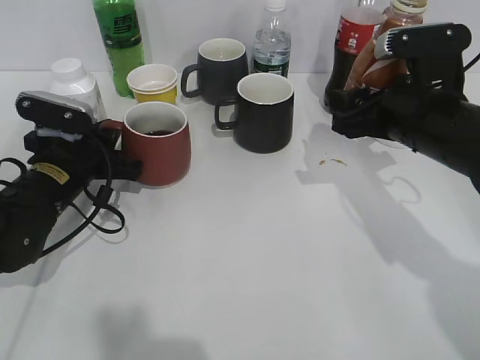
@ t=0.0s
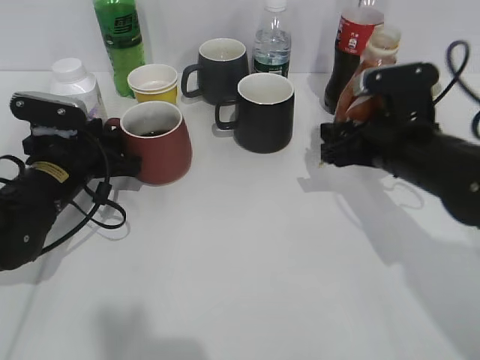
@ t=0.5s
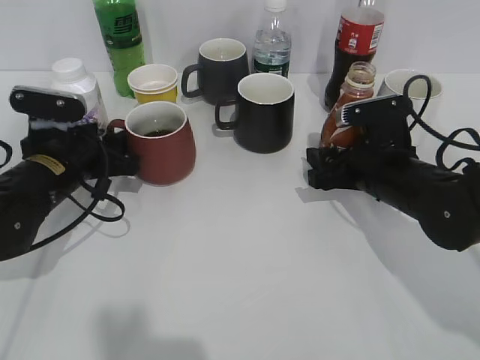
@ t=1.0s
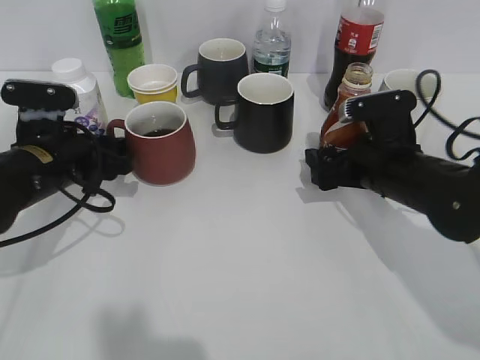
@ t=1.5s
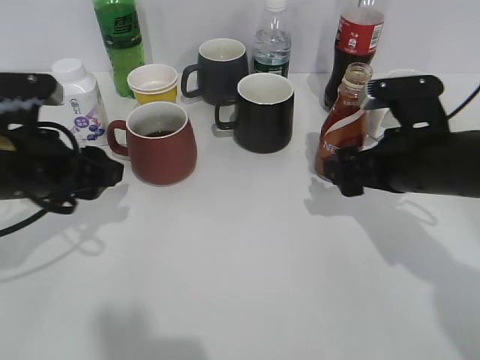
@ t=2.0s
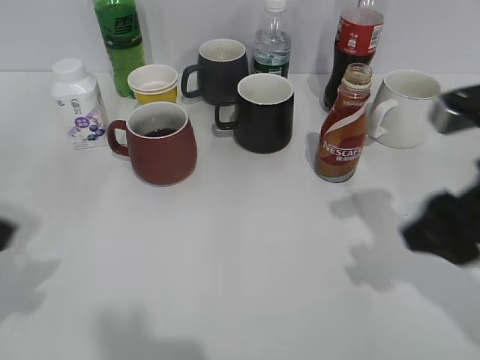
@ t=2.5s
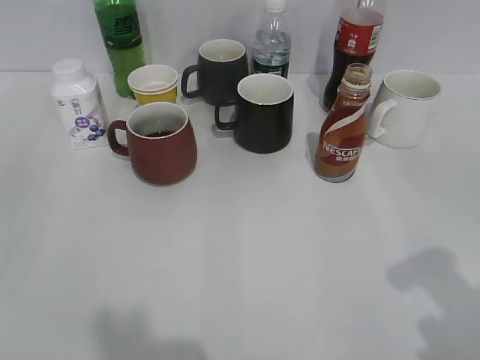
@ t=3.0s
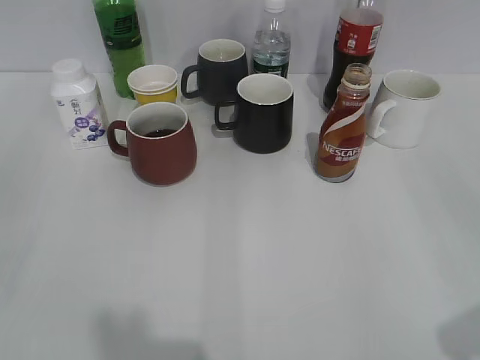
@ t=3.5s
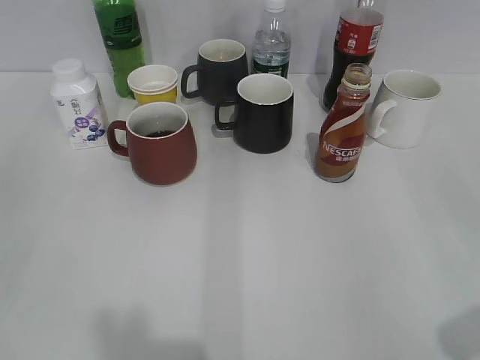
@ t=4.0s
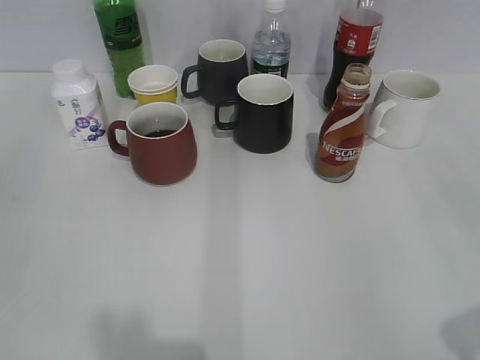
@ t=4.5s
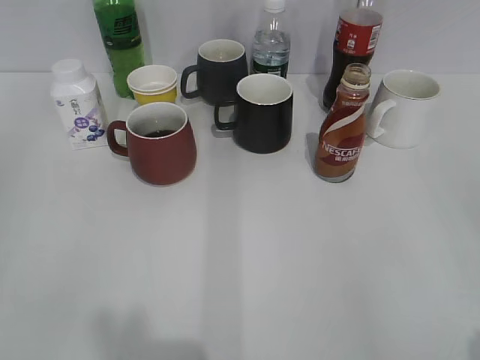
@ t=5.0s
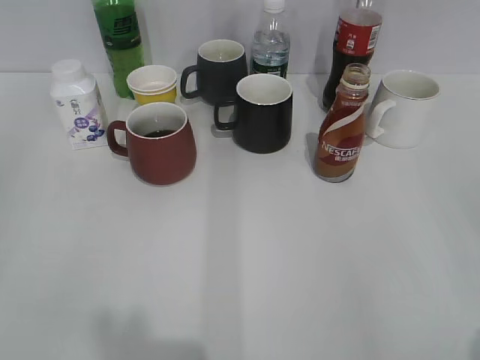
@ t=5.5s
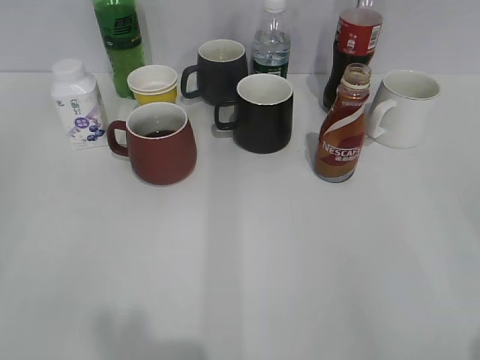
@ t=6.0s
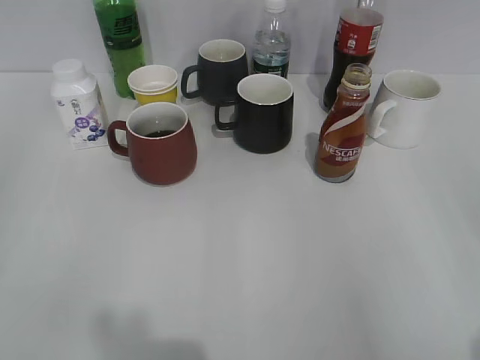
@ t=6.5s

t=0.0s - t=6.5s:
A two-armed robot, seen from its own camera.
Step, t=0.5s - t=1.5s: Place the coffee bottle on the table with right gripper.
t=0.0s - t=2.0s: The left gripper travels upward and backward by some 10 cm, and opens up. The right gripper opens up.
t=2.0s - t=4.5s: The right gripper heads backward, upward and to the right, covering approximately 30 cm, and closes, while the left gripper is displaced backward, to the left and upward by approximately 25 cm.
